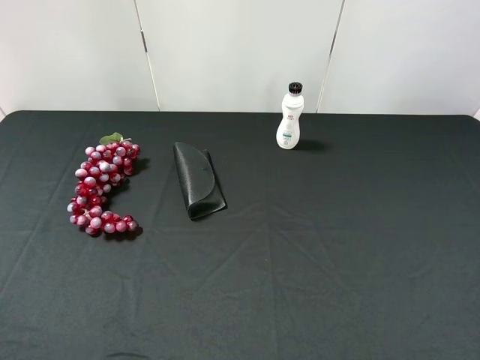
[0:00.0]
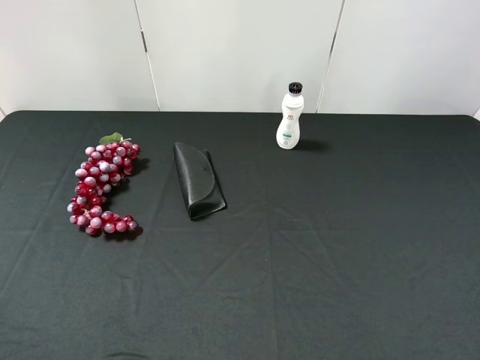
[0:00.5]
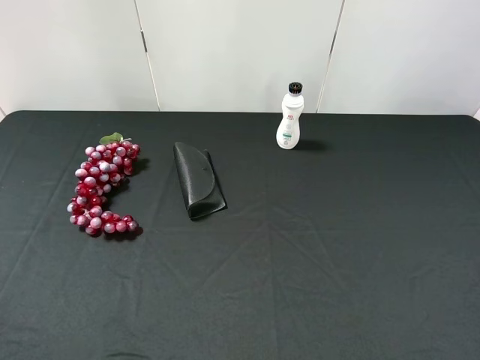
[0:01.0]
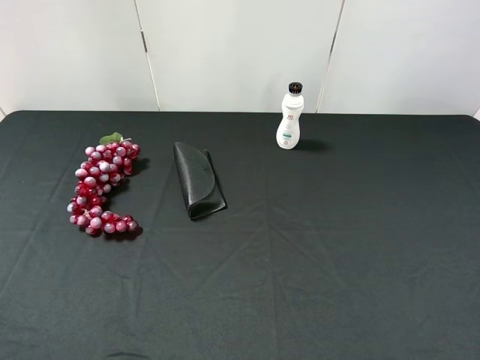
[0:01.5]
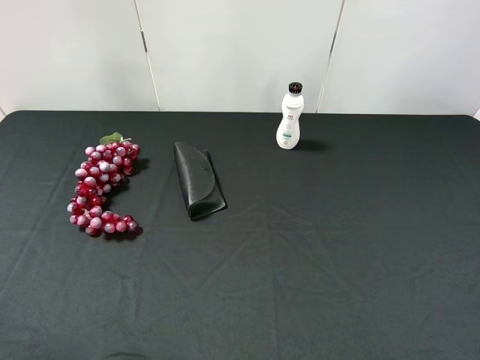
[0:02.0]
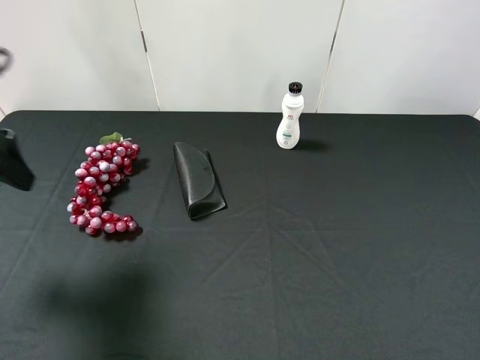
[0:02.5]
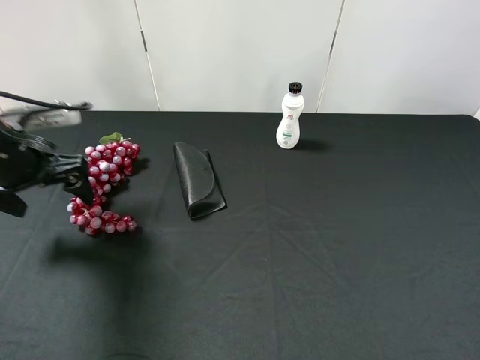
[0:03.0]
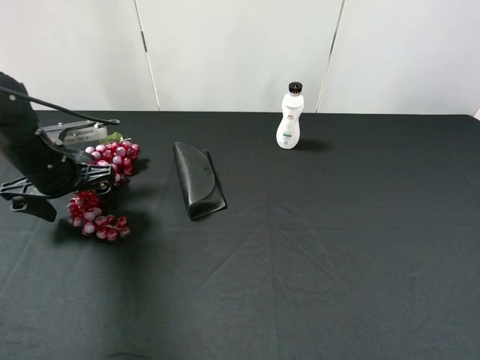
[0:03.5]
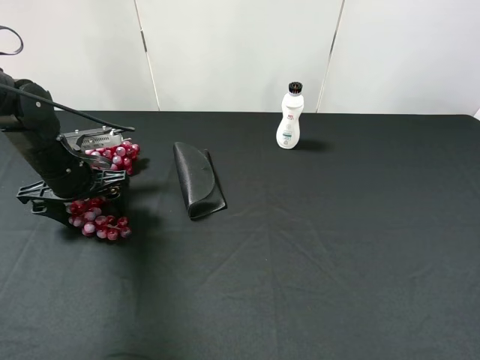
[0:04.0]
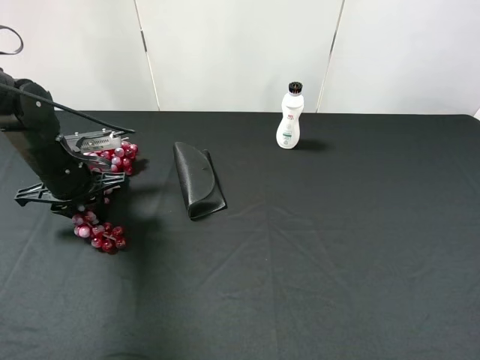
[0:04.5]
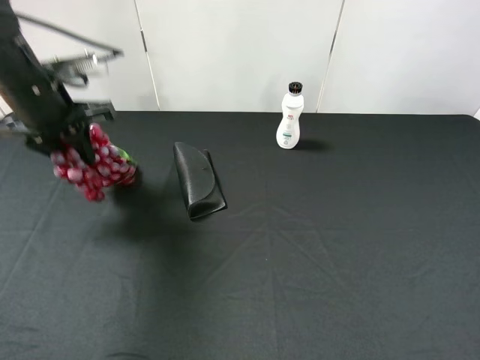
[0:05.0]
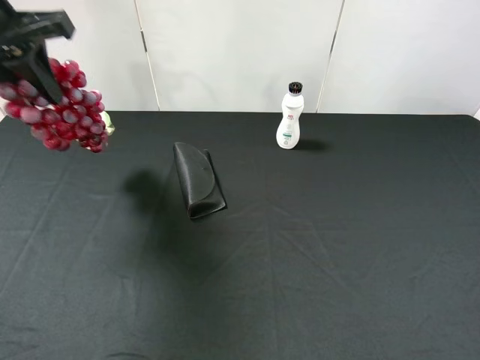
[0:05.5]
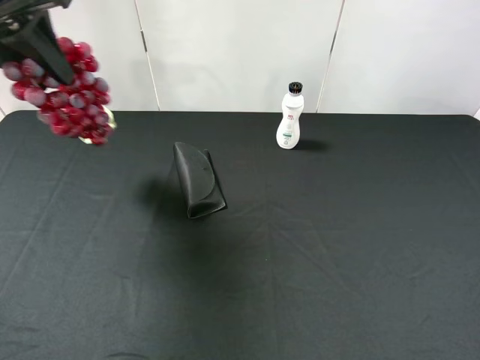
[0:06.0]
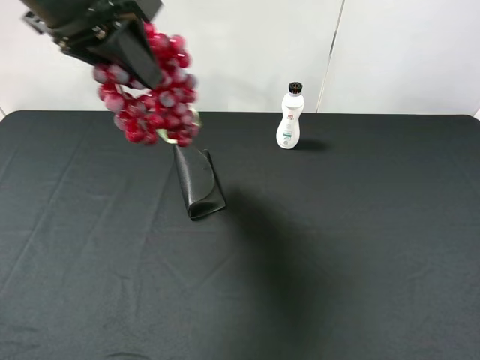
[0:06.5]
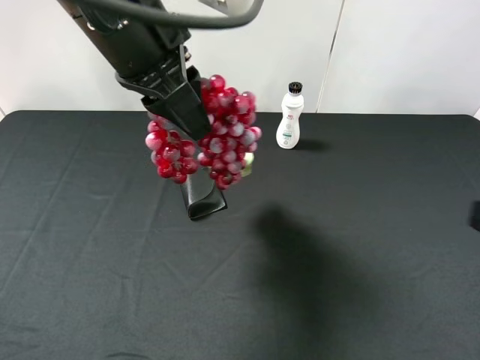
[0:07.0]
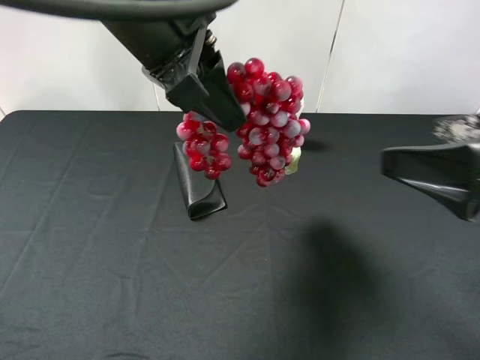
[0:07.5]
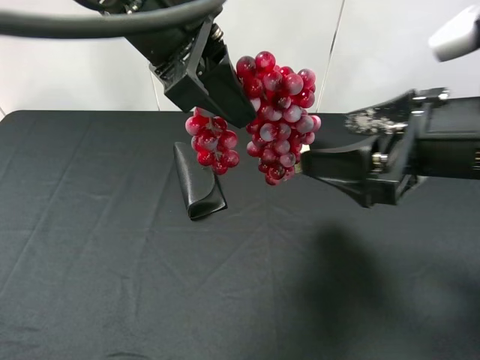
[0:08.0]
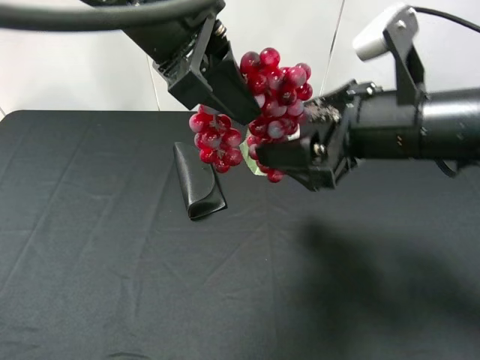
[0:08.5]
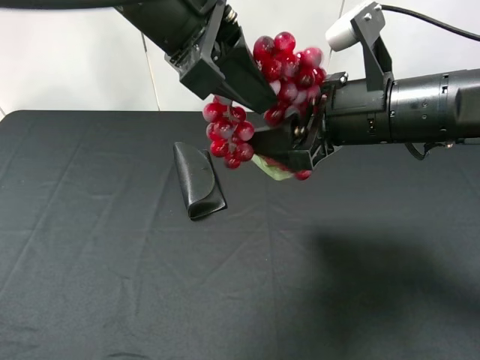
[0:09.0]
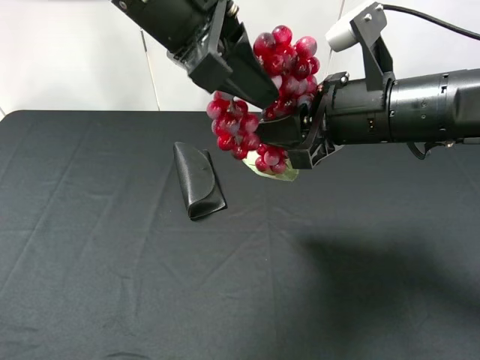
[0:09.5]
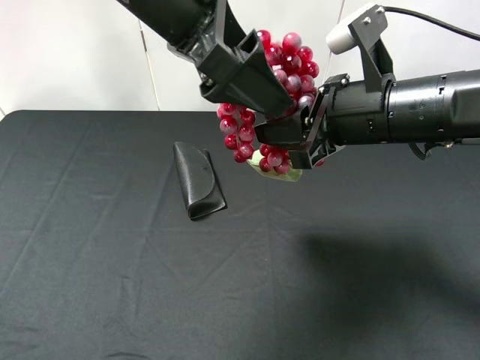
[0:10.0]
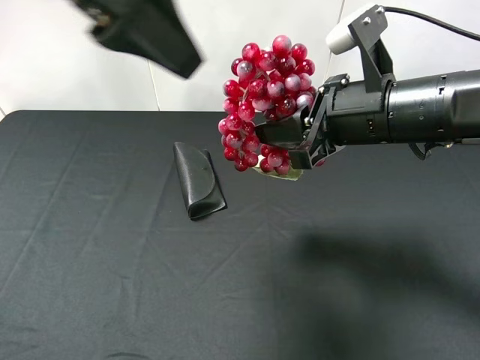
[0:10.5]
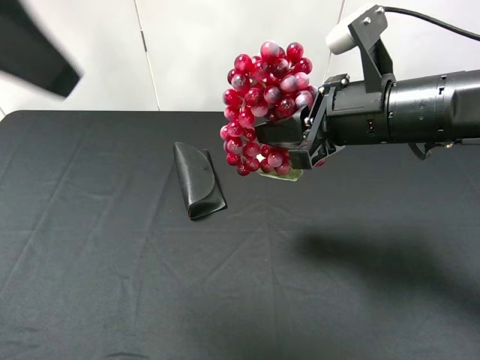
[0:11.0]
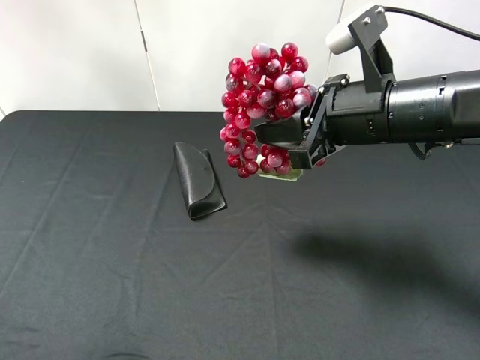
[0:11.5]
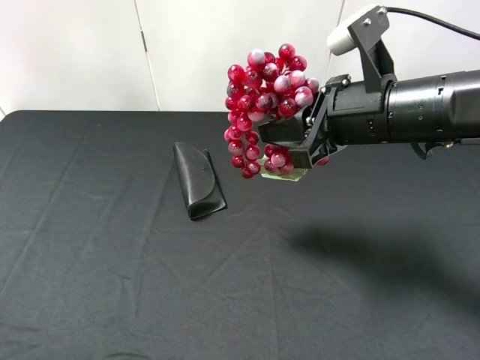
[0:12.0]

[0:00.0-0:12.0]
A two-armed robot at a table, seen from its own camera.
Task of the whole recording: use the left gripper to pick up the item and transfer it from the left gripper to the right gripper.
0:02.0 to 0:04.0: The left gripper shifts roughly 35 cm forward and downward.
0:04.0 to 0:06.0: The left gripper travels upward by approximately 25 cm, and closes up.
0:06.0 to 0:08.0: The right gripper heads forward and to the left, covering roughly 20 cm. The left gripper goes approximately 15 cm to the right.
0:08.0 to 0:10.0: The right gripper travels forward by roughly 5 cm, and closes. The left gripper opens its fingers.
0:10.0 to 0:12.0: The left gripper goes about 35 cm to the left and backward.

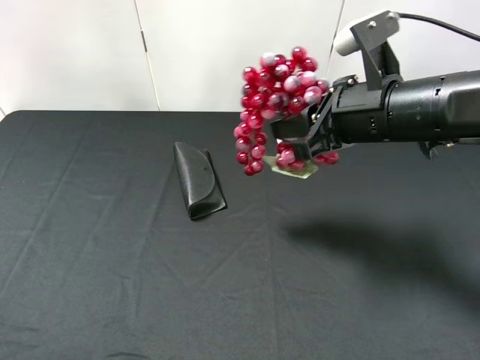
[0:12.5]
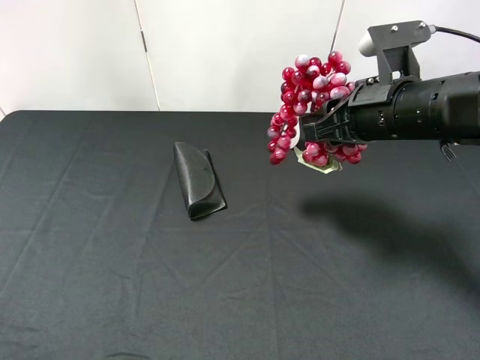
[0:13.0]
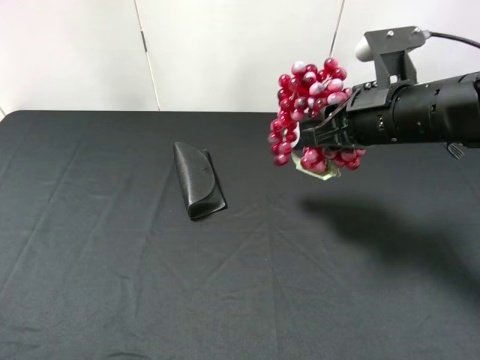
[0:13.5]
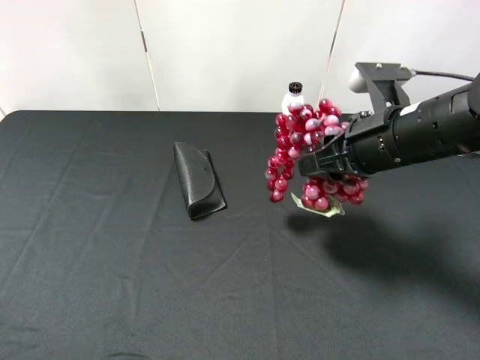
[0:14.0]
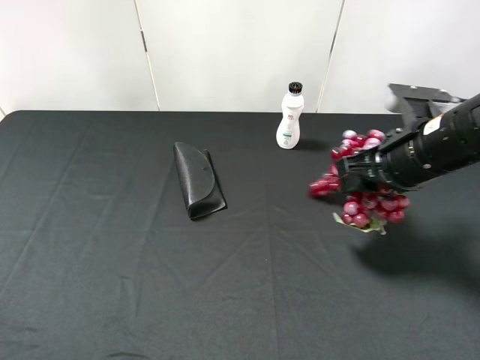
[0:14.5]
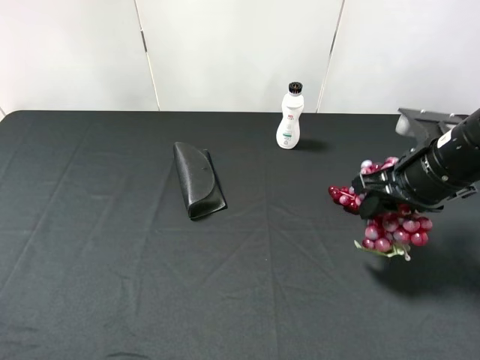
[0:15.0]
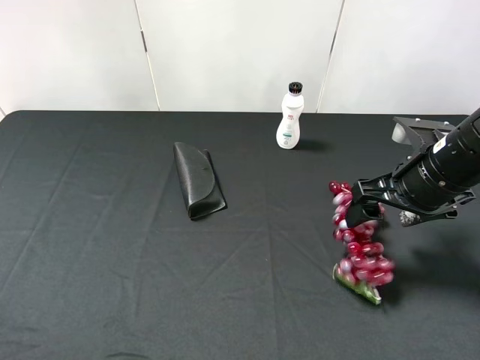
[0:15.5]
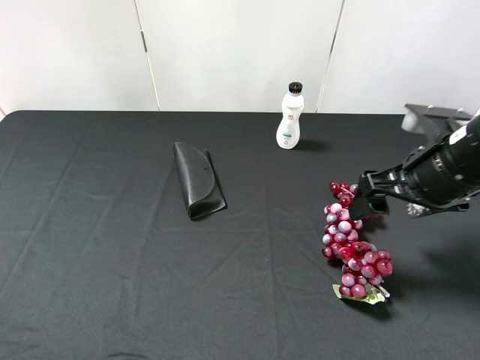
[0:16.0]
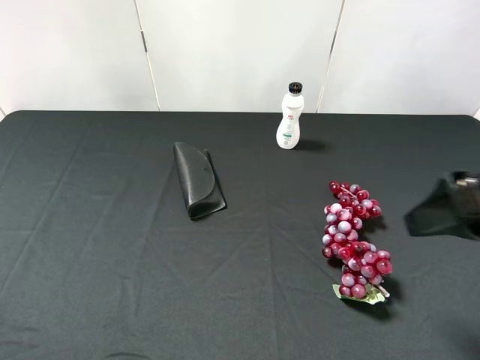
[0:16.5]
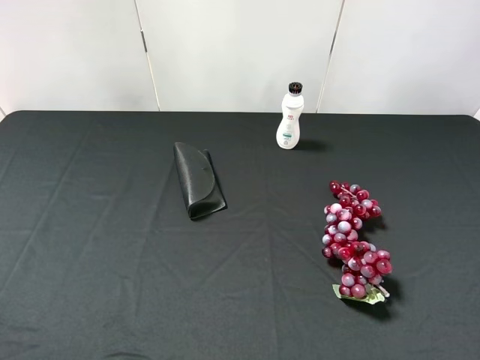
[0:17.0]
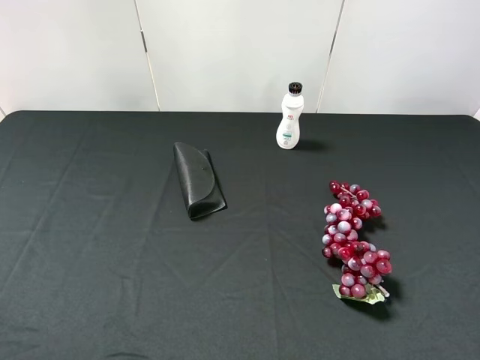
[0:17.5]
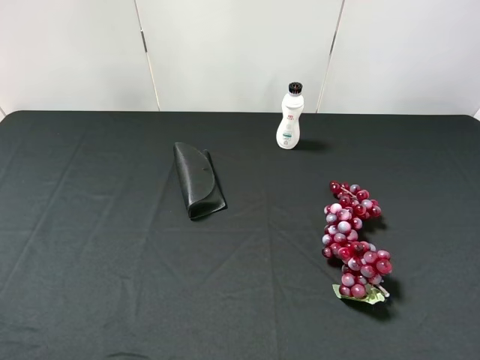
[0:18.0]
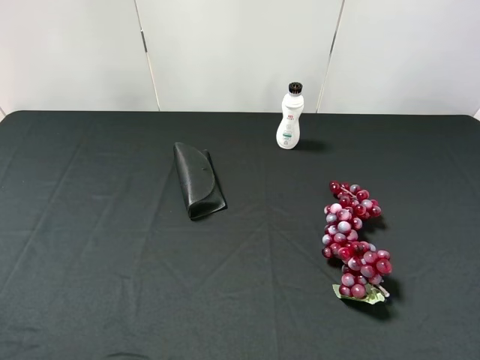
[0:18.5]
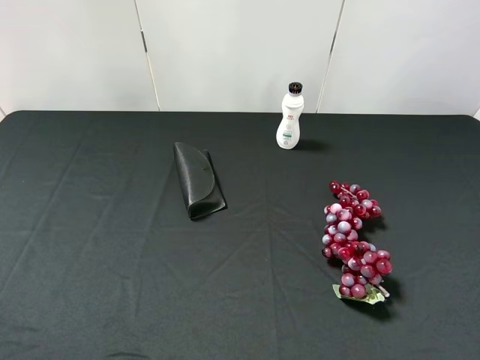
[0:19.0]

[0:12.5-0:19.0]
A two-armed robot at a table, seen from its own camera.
Task of the whole recording: use the left gripper to pick up the item and transfer it from the left gripper to the right gripper.
0:12.5 to 0:14.5: The right gripper moves to the right, roughly 5 cm.
0:14.5 to 0:17.0: The right gripper shifts approximately 20 cm backward and upward, and opens up.
